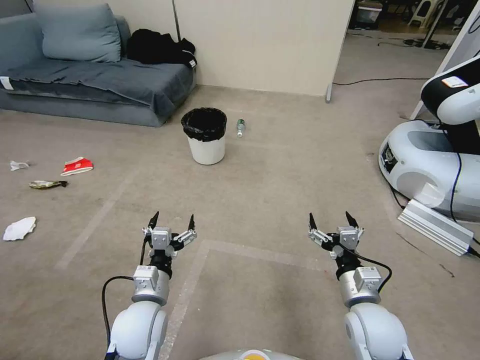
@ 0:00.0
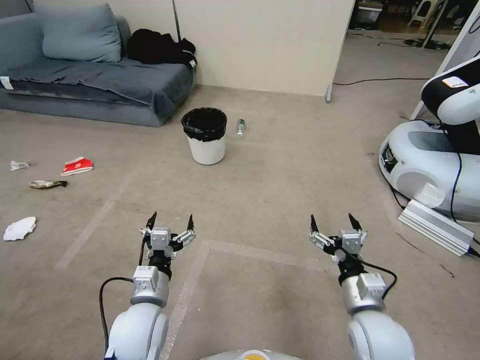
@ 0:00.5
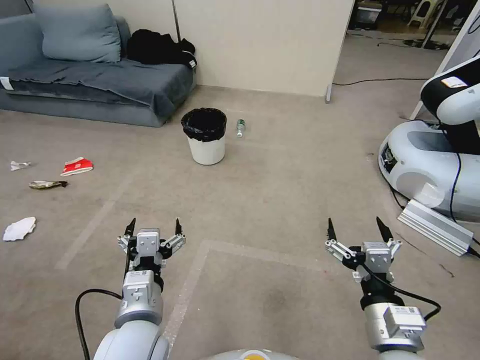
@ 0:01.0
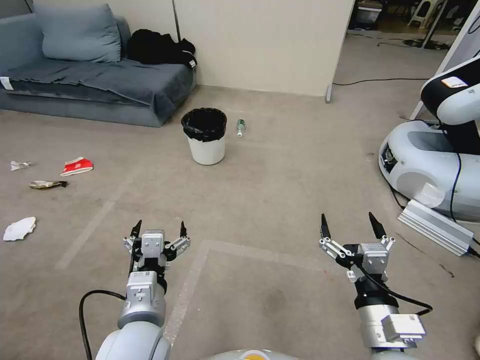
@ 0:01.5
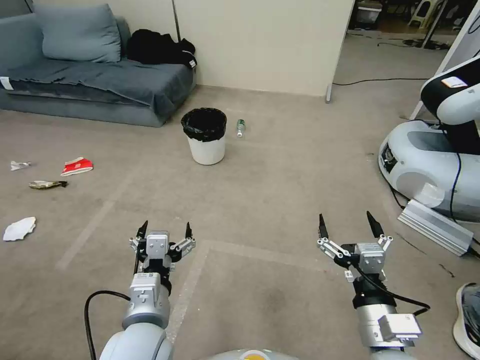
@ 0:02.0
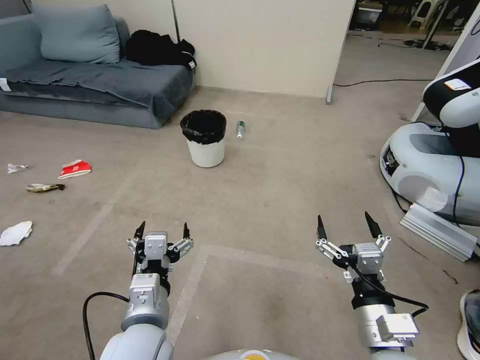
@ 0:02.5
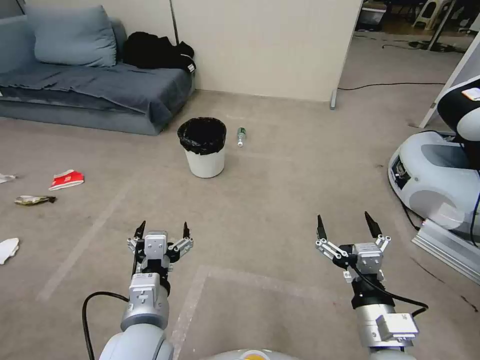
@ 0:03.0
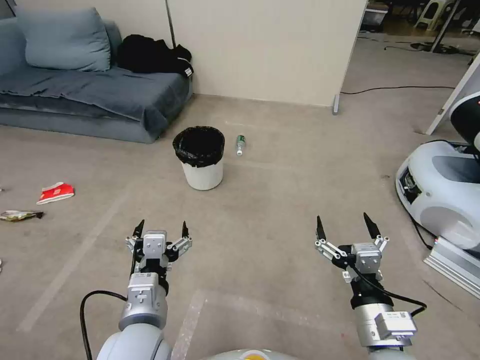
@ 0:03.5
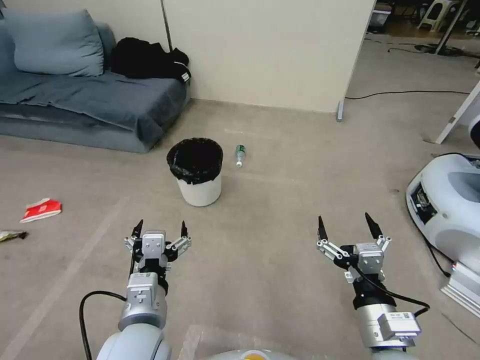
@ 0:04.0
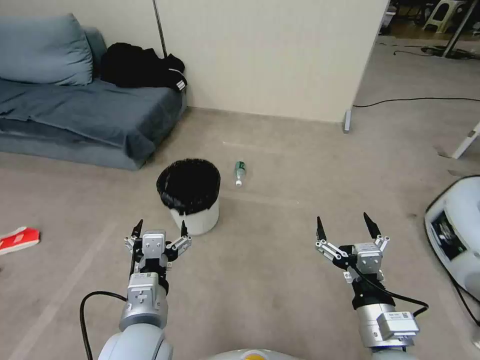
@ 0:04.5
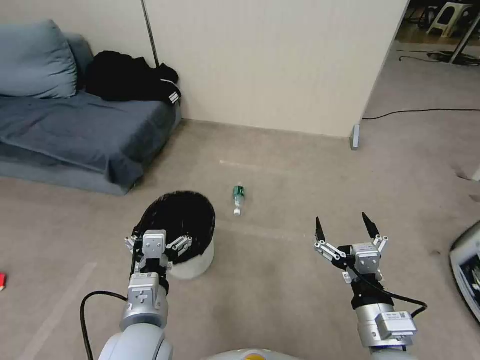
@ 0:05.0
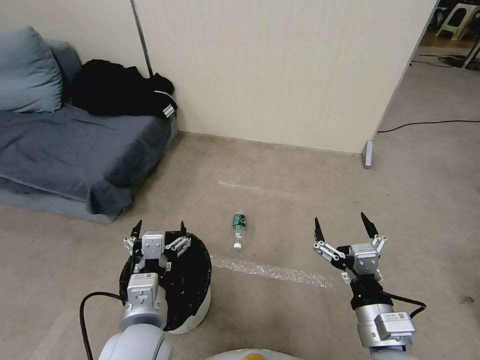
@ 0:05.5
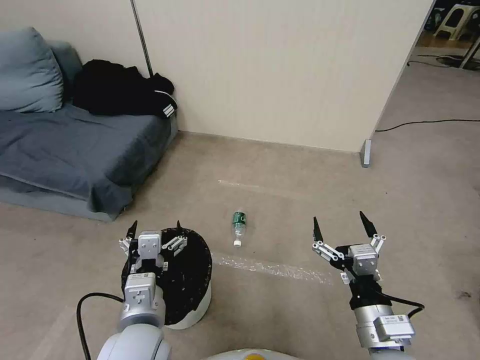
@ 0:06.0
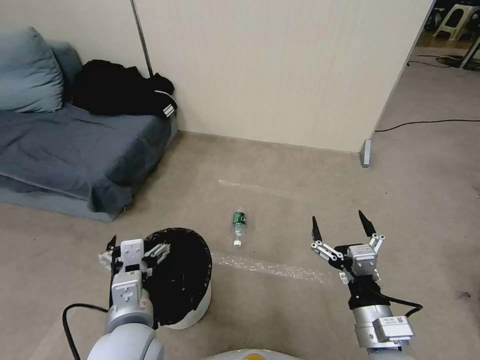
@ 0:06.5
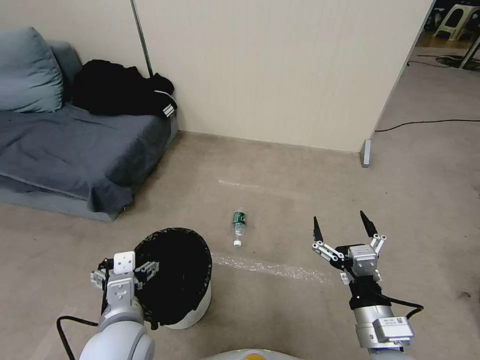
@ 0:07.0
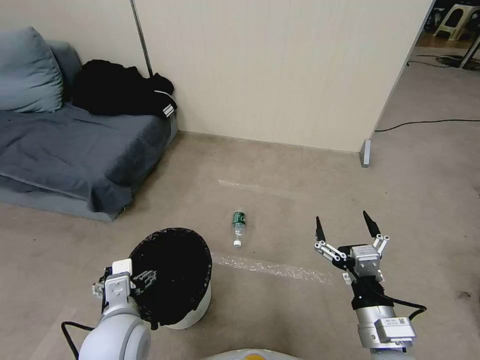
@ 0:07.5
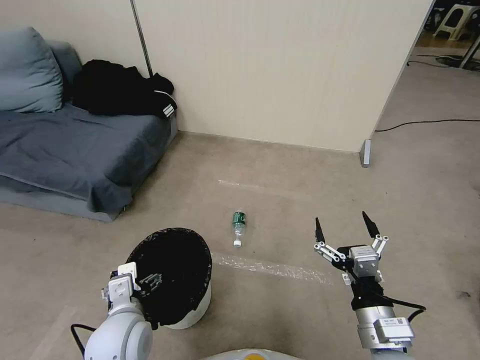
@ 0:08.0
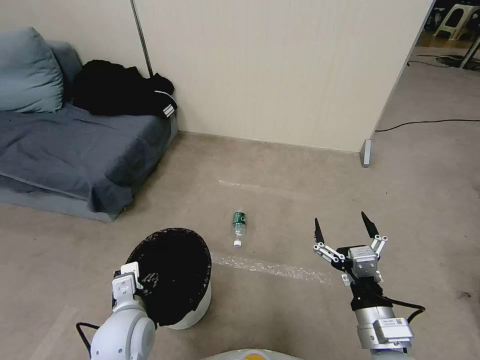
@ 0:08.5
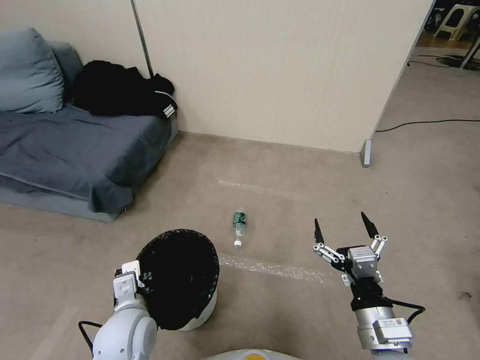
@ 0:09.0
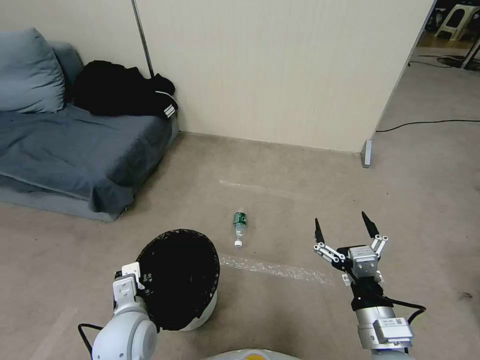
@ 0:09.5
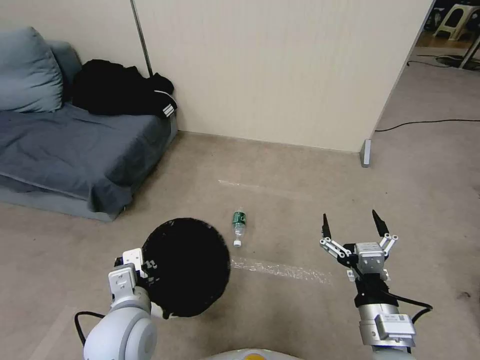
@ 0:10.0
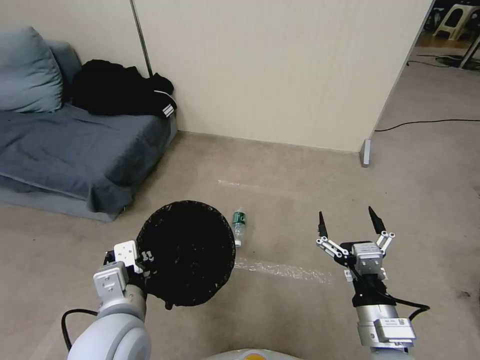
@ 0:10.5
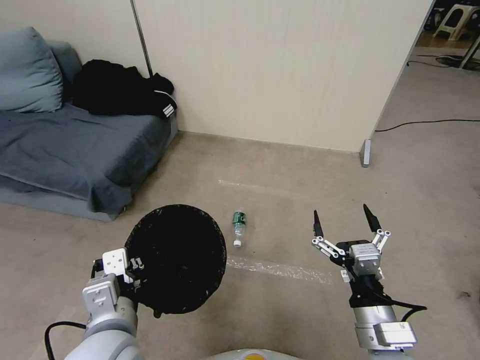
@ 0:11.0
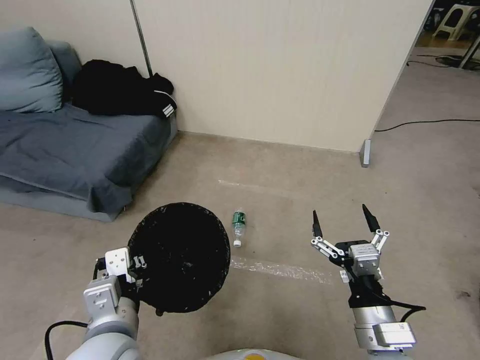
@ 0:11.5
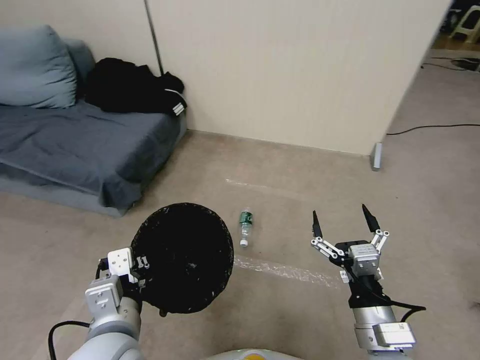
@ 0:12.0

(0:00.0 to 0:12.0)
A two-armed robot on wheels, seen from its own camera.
Task of the whole recording: Pick up the trash bin, then pick up the garbage from the floor and place it into the trash bin.
0:06.0 - 0:08.0: The left gripper is displaced downward and to the left by about 10 cm.
0:08.0 - 0:10.0: The left gripper changes place by approximately 5 cm, and closes up.
0:10.0 - 0:12.0: The left gripper heads upward, covering some 5 cm.

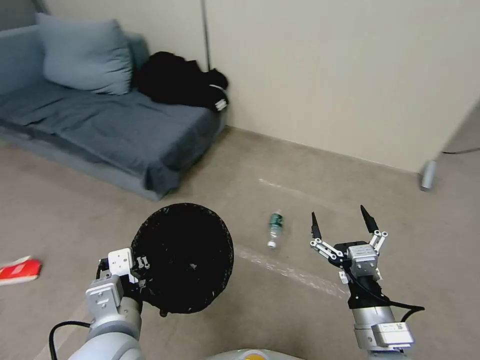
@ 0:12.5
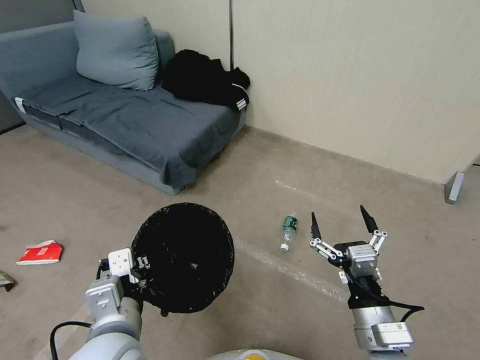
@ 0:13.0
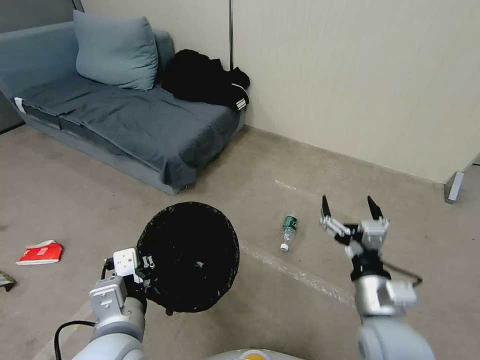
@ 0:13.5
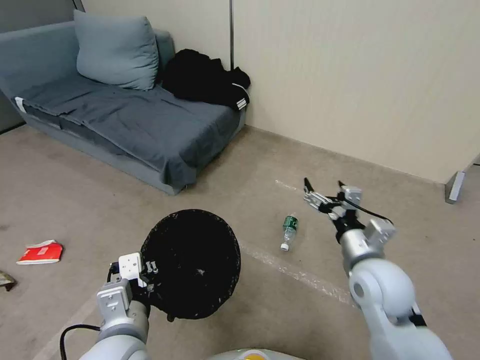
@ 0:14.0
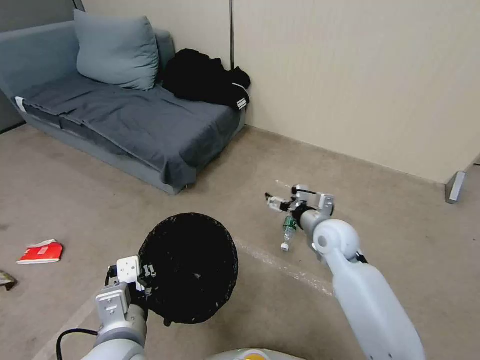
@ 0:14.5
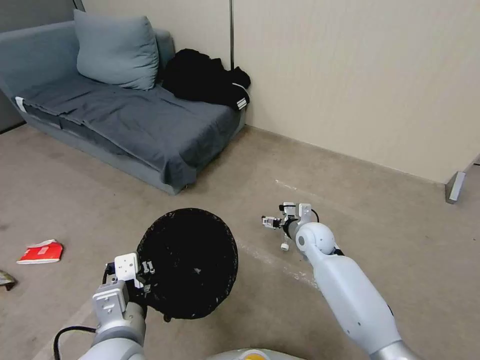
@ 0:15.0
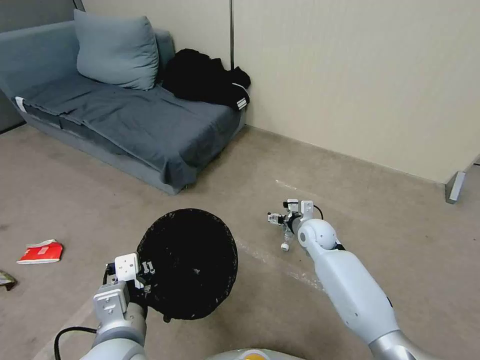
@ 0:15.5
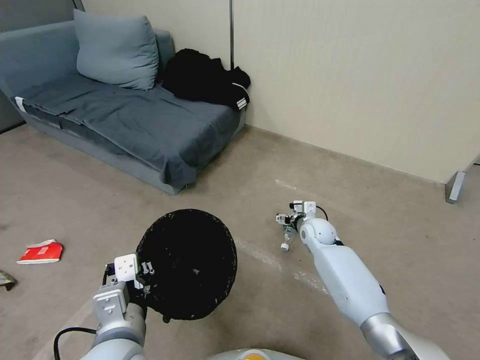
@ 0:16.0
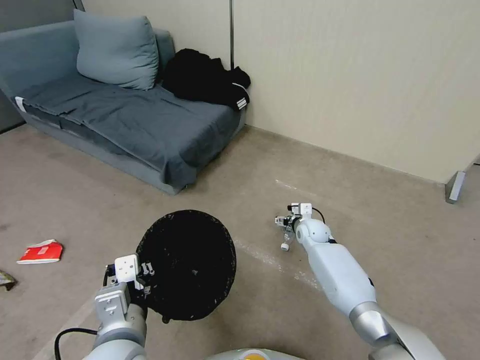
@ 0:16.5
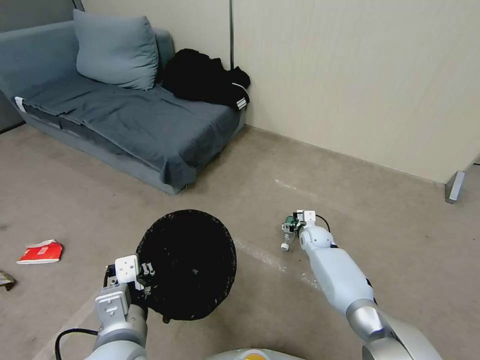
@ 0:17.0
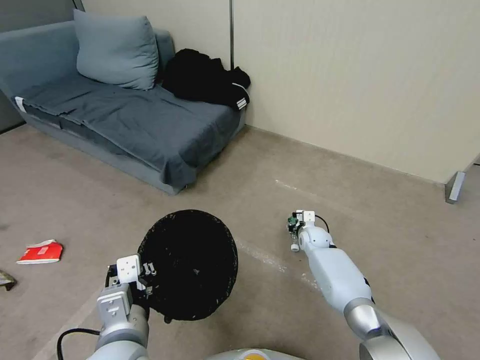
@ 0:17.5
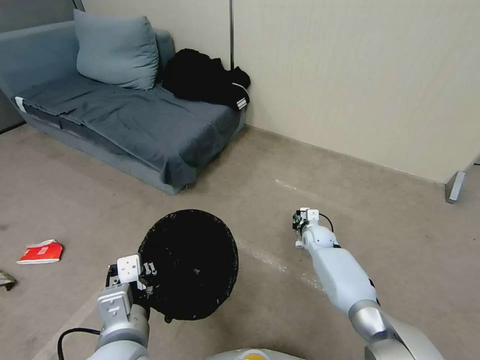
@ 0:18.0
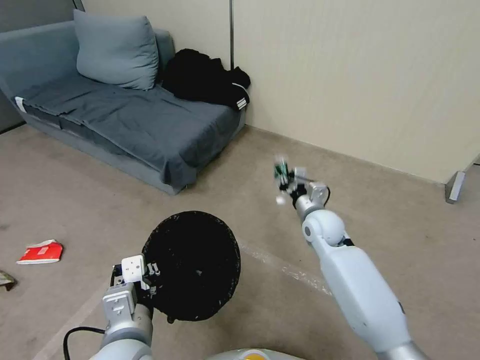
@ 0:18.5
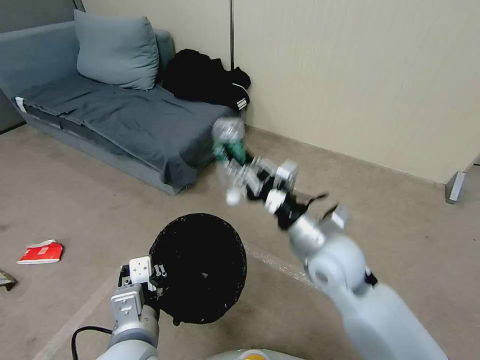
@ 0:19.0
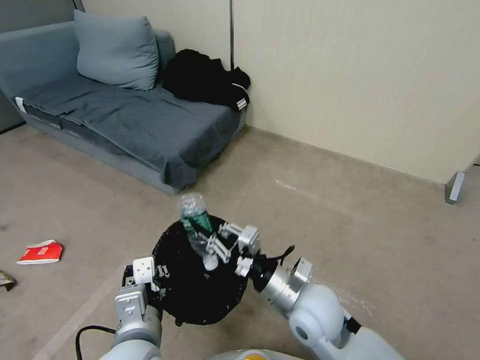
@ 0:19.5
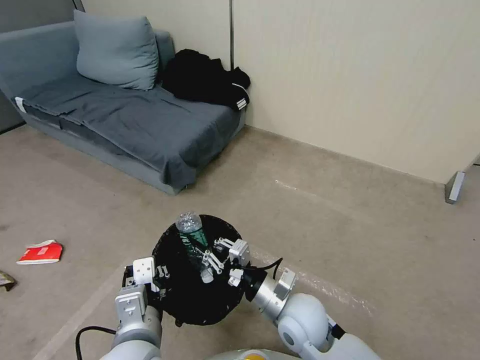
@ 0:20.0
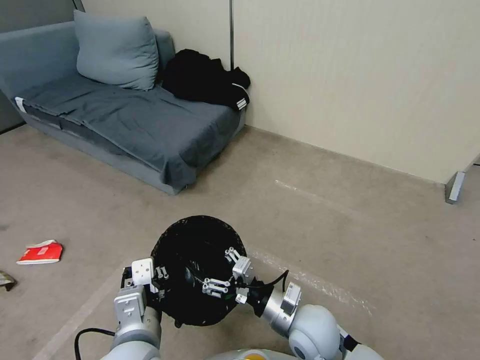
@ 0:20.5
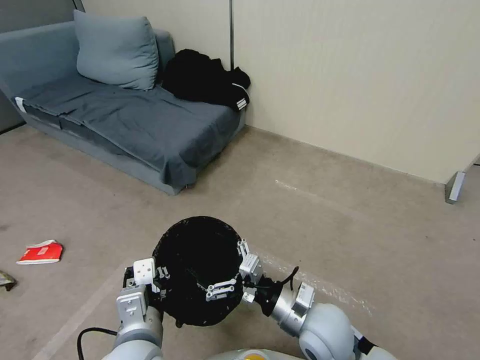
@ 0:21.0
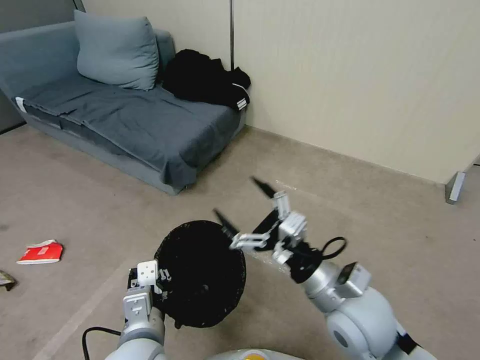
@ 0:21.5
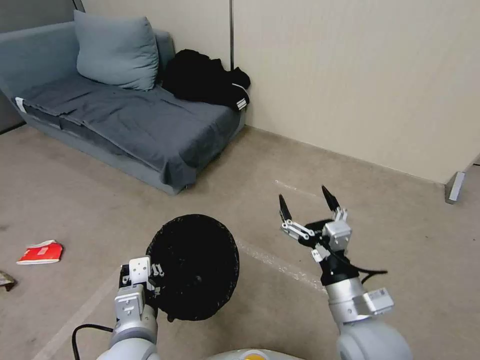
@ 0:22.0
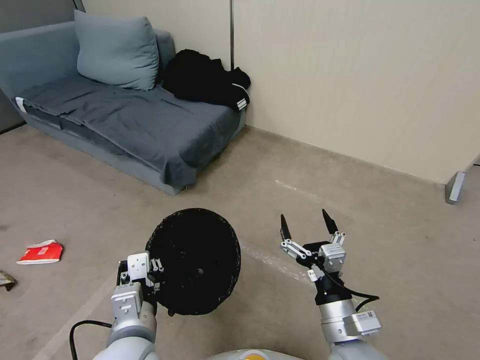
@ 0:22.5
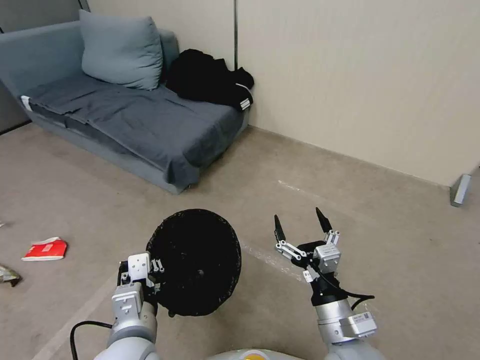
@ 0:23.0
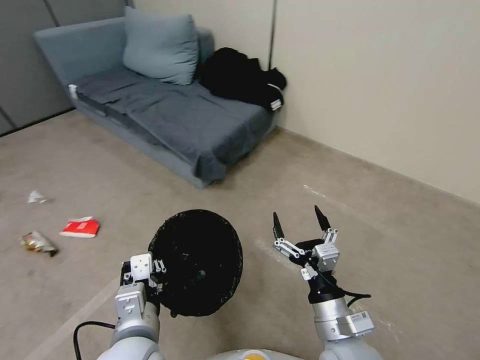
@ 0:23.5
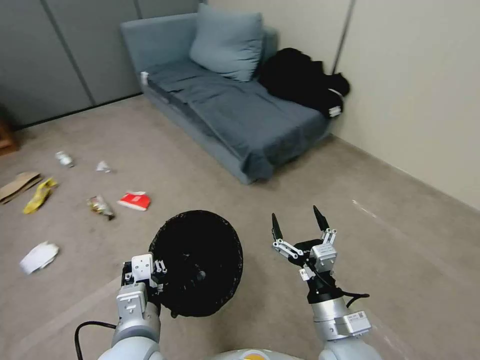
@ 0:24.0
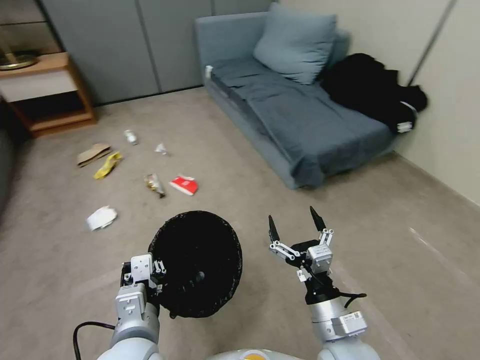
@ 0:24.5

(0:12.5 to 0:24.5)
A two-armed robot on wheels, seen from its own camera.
Task of the whole recording: Pick up the trash bin, then pick up the garbage from the floor and place it into the trash bin.
0:12.5 - 0:14.5: The right gripper heads forward, covering some 25 cm.
0:14.5 - 0:16.5: The right gripper shifts some 20 cm downward and forward.
0:16.5 - 0:18.5: The right gripper travels upward and backward by roughly 15 cm, and closes up.
0:18.5 - 0:20.5: The right gripper travels backward by approximately 20 cm, and opens its fingers.
0:20.5 - 0:22.5: The right gripper heads backward, upward and to the right, covering about 10 cm.

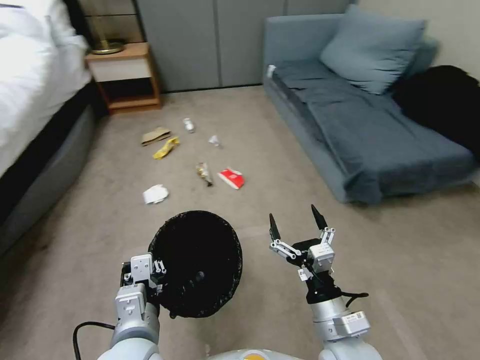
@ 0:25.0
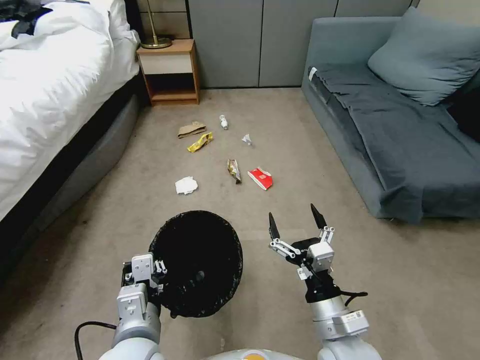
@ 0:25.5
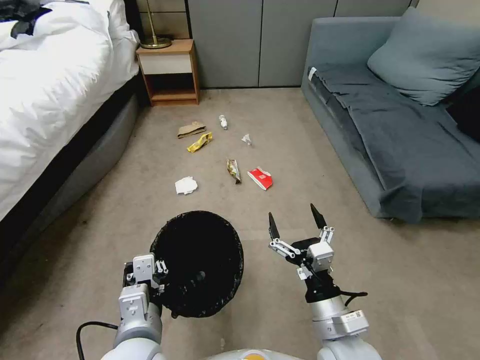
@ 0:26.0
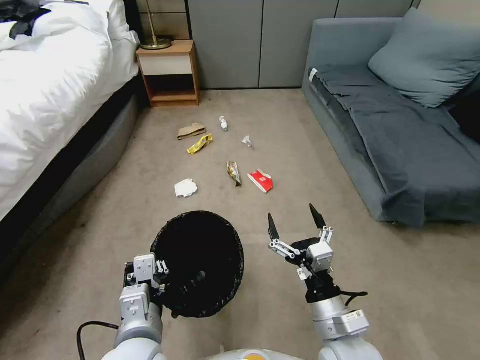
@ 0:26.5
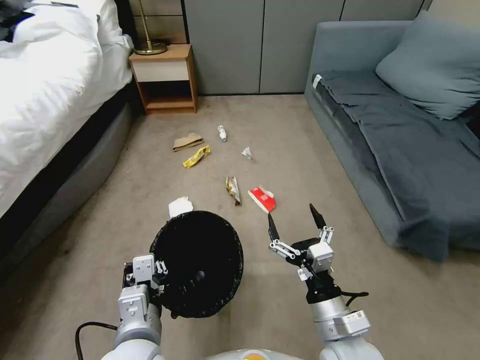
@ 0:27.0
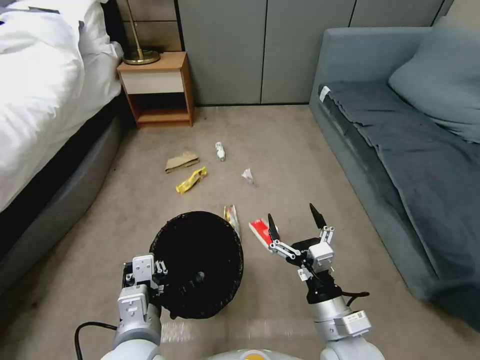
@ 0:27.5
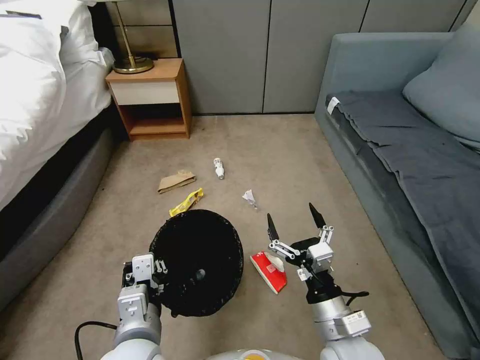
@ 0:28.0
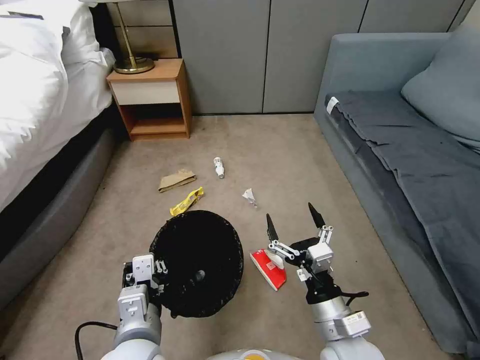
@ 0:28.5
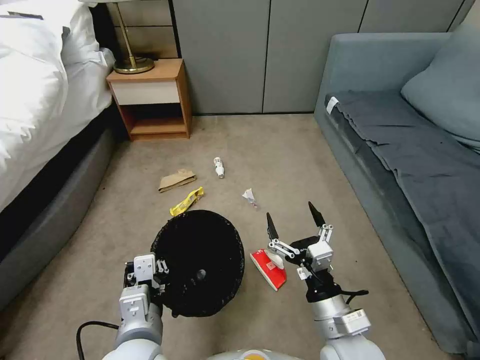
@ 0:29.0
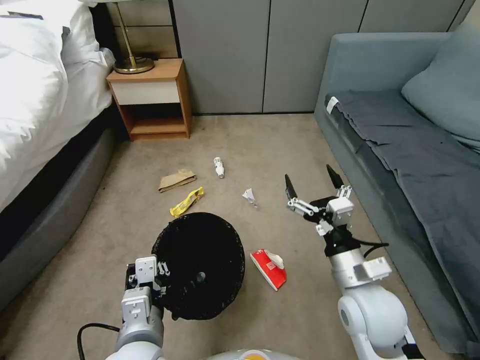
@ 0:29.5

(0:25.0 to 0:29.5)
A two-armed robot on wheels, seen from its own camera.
Task of the whole recording: Pick up the trash bin, then pick up the garbage from the floor and place it into the trash bin.
0:27.0 - 0:29.5: The right gripper travels forward by some 5 cm.
